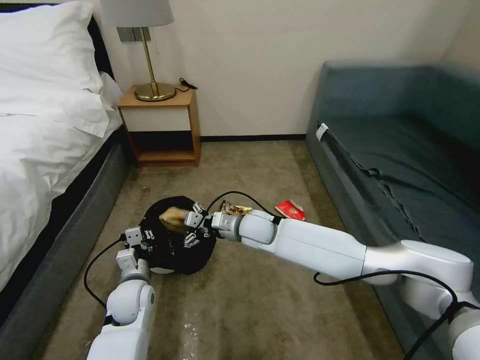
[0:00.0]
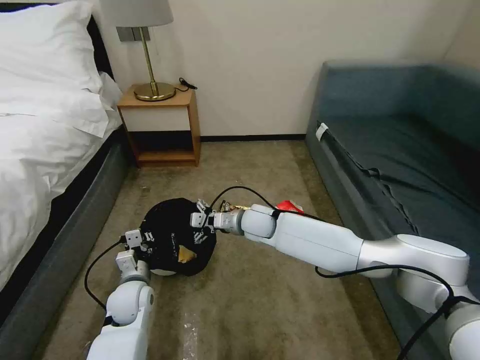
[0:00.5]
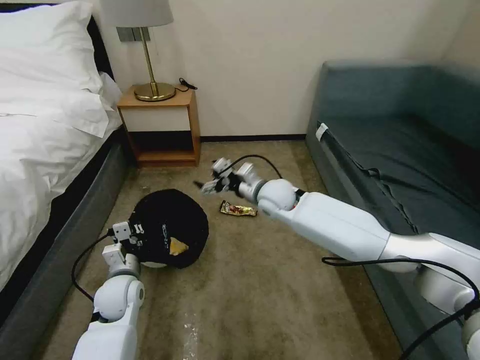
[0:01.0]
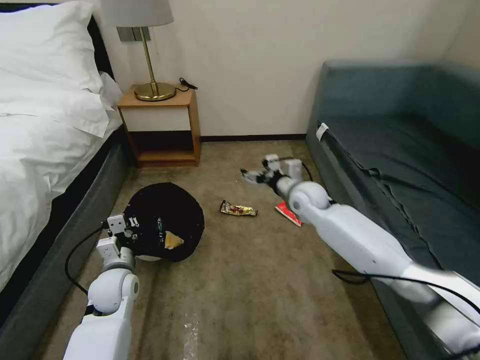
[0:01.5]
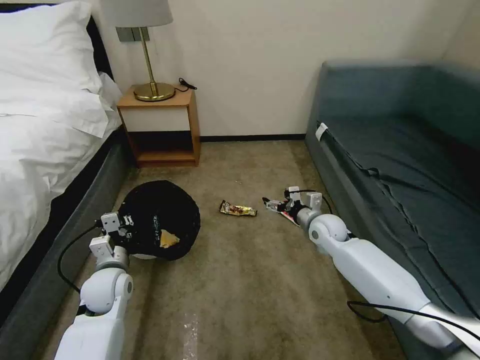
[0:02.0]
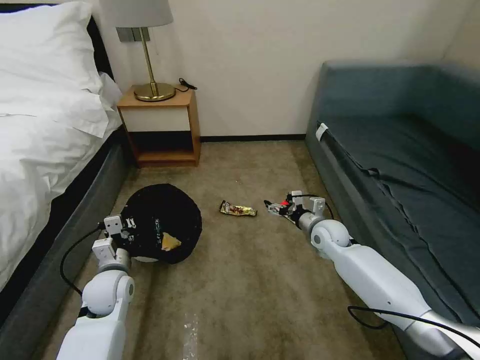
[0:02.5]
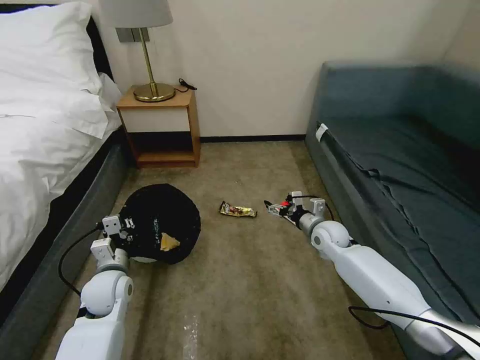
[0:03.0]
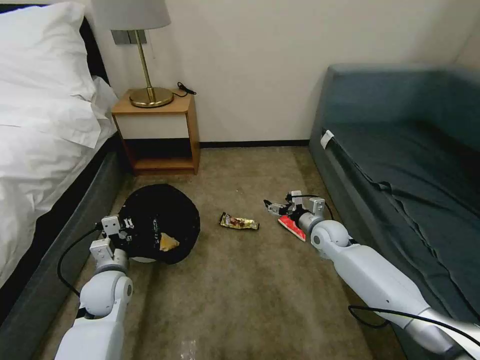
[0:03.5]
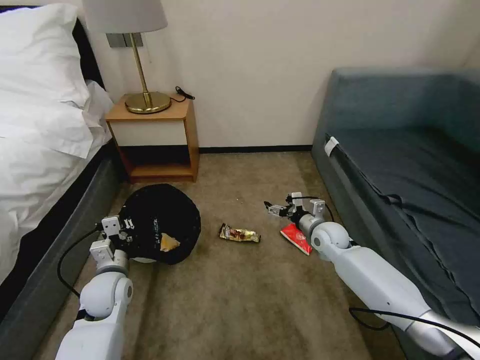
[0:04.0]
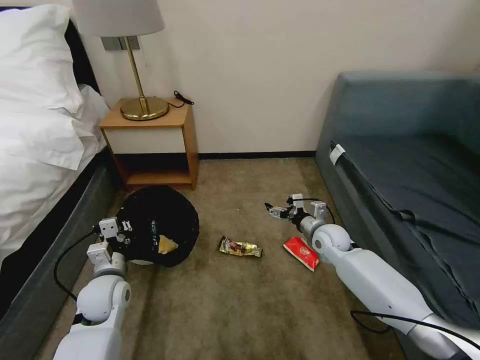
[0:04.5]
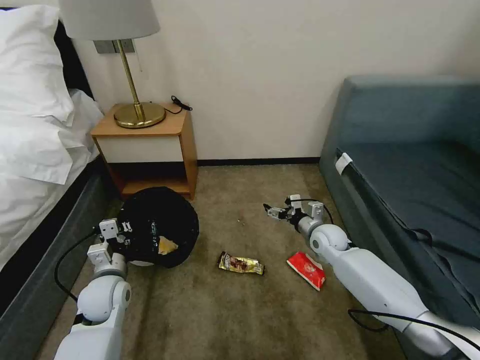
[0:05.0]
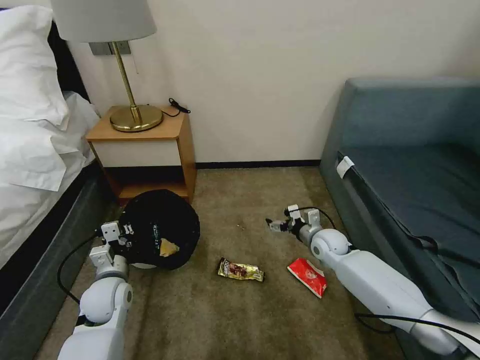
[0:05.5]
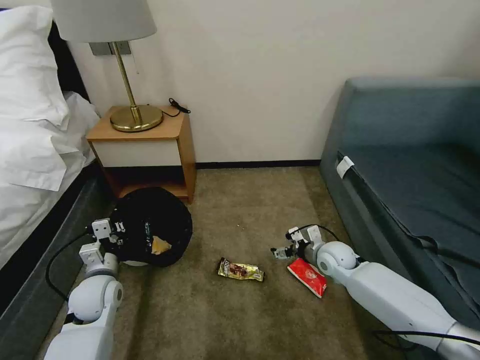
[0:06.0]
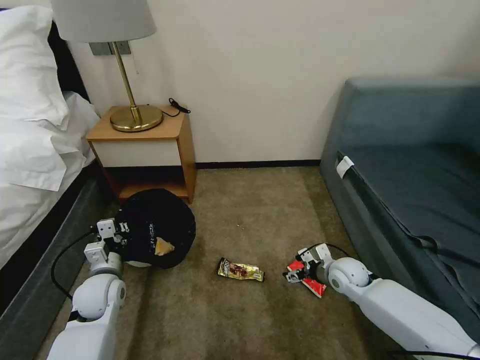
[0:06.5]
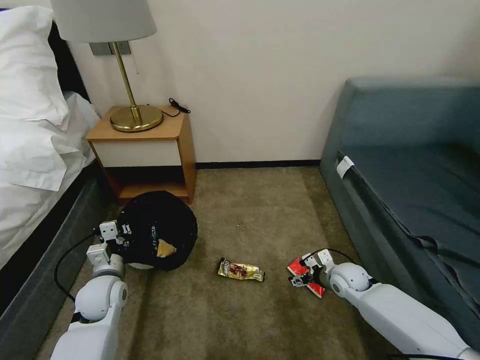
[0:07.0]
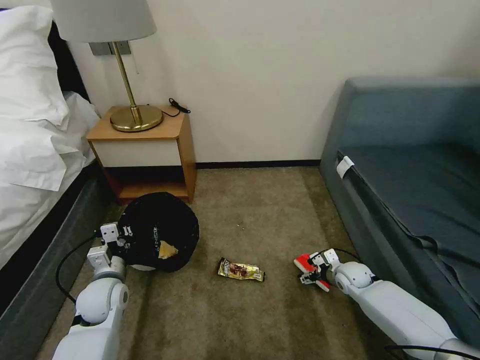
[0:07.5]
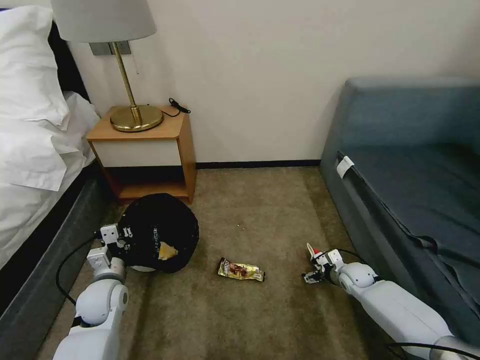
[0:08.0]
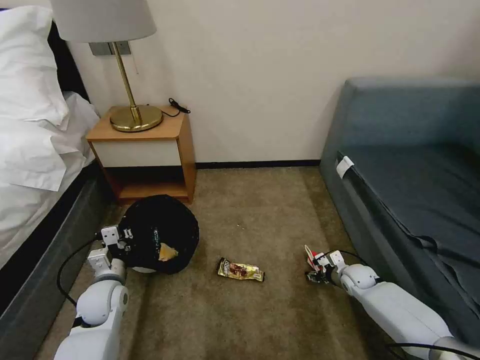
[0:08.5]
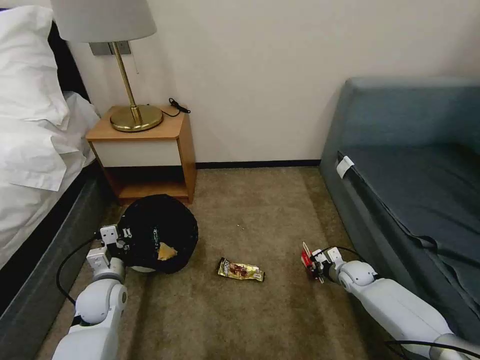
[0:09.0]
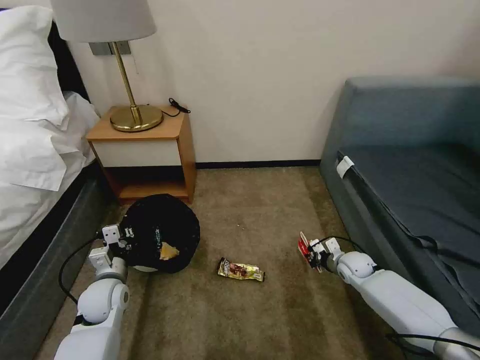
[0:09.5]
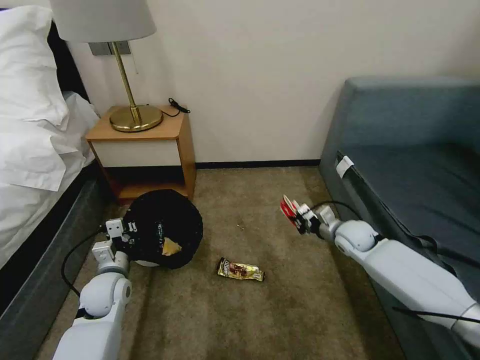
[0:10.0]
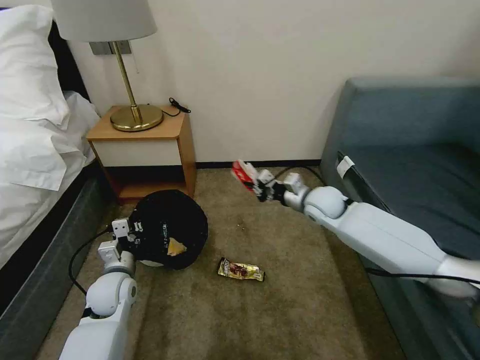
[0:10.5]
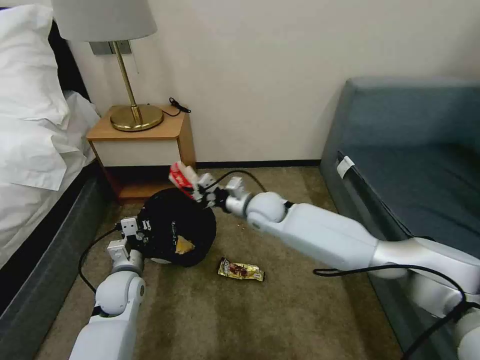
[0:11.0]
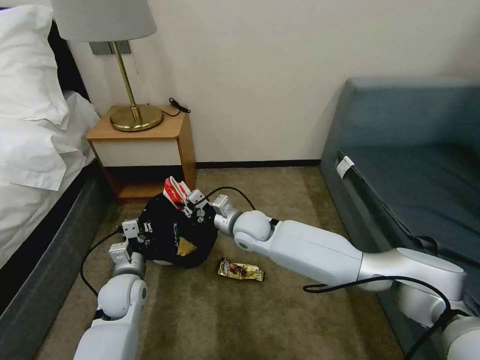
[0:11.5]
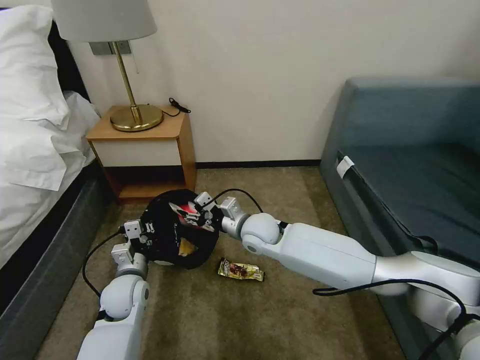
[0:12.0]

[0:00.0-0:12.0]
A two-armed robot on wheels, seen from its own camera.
Task of the whole recording: Pick up the trash bin, then pick up the garbage on the floor and place it into the trash bin.
0:00.0 to 0:02.0: The right gripper goes roughly 20 cm to the right. The left gripper changes place by roughly 5 cm.
0:04.0 to 0:06.0: The right gripper changes place by roughly 5 cm.
0:06.0 to 0:08.0: The right gripper moves downward and to the right, approximately 15 cm.
0:08.0 to 0:10.0: The right gripper heads upward, covering approximately 15 cm, and closes.
0:10.0 to 0:12.0: The right gripper heads to the left, covering approximately 25 cm, and opens up.

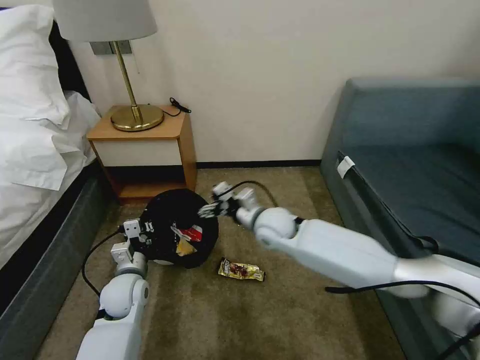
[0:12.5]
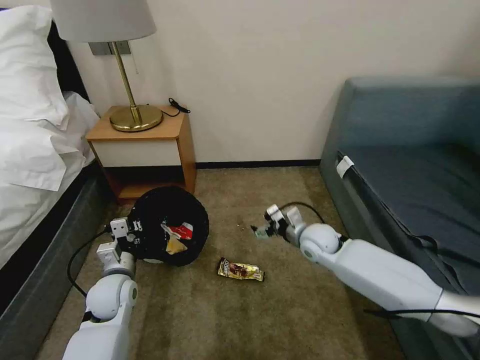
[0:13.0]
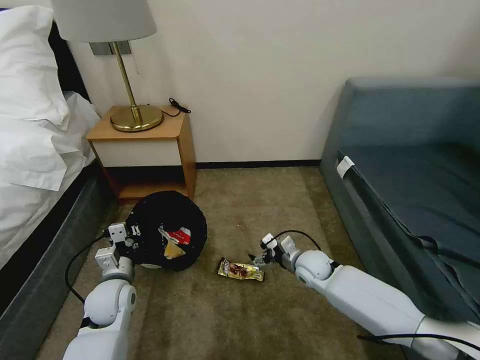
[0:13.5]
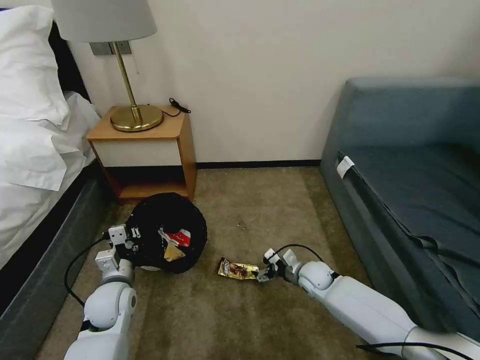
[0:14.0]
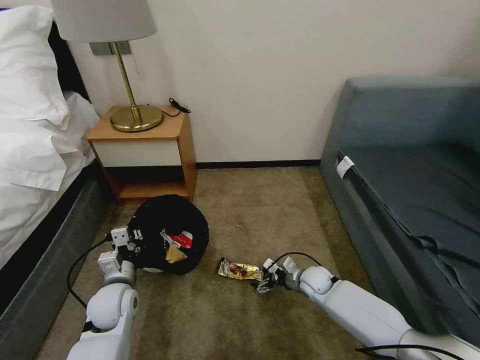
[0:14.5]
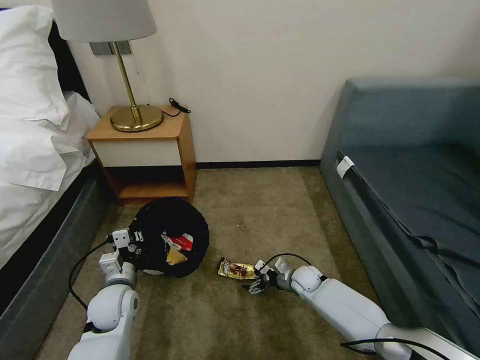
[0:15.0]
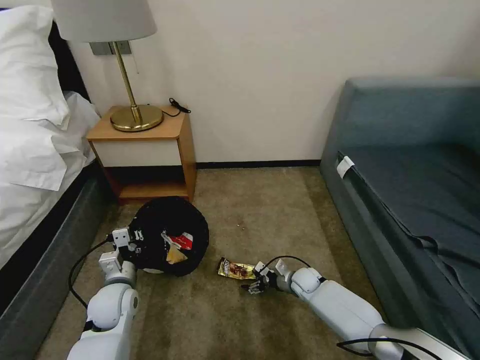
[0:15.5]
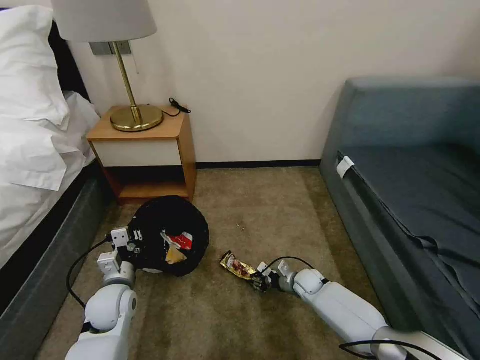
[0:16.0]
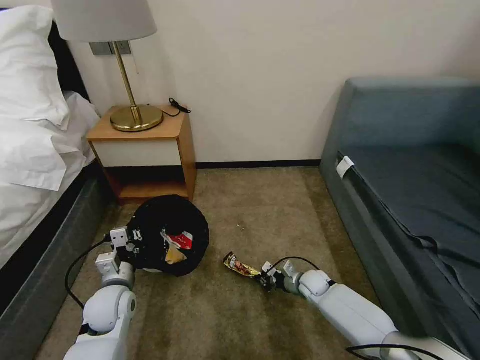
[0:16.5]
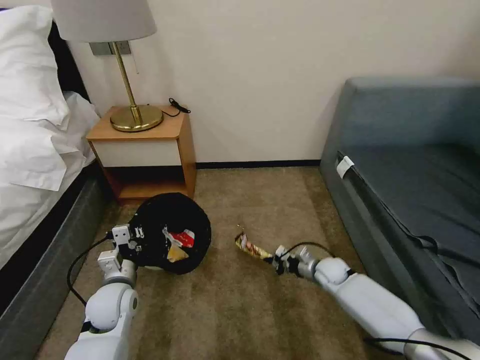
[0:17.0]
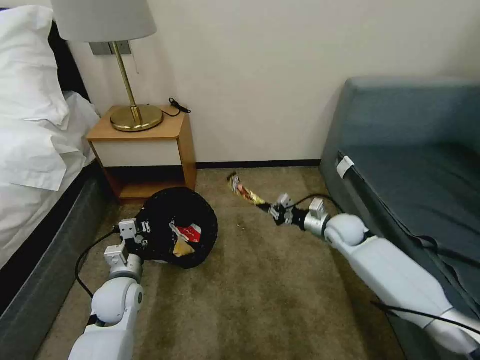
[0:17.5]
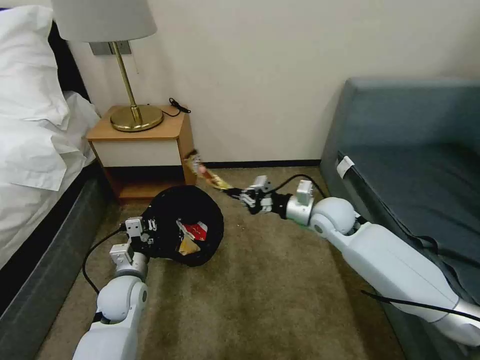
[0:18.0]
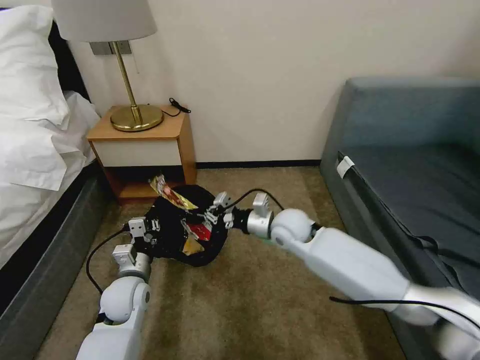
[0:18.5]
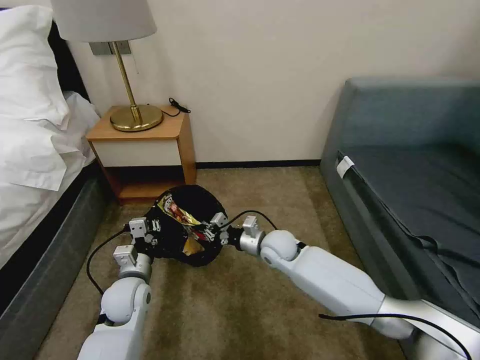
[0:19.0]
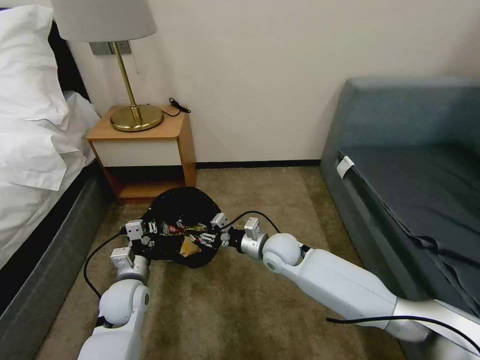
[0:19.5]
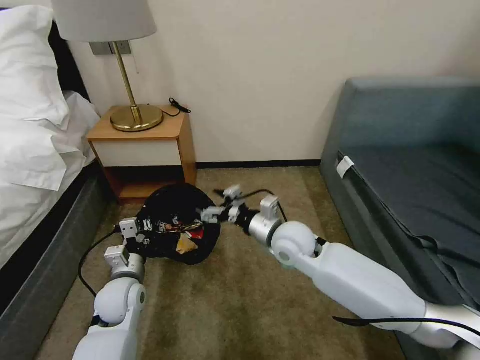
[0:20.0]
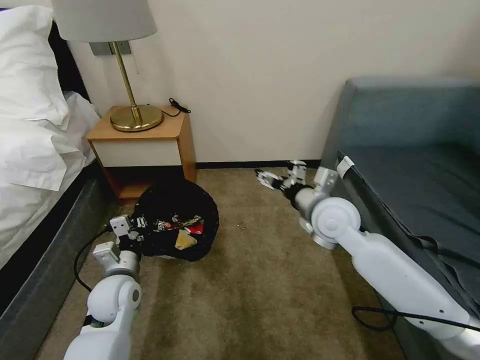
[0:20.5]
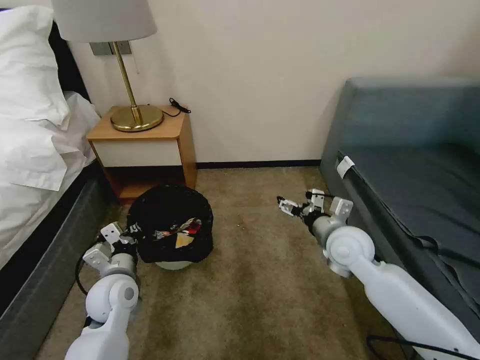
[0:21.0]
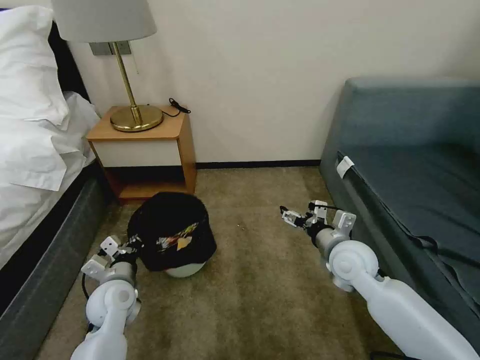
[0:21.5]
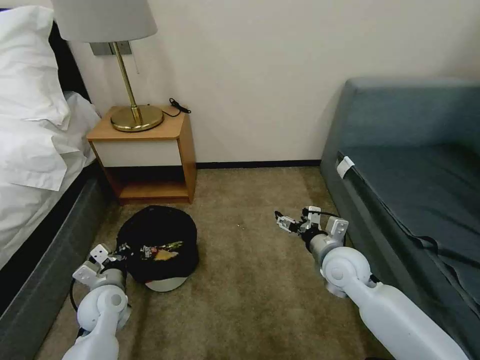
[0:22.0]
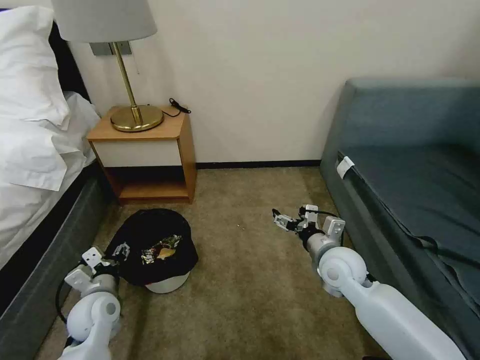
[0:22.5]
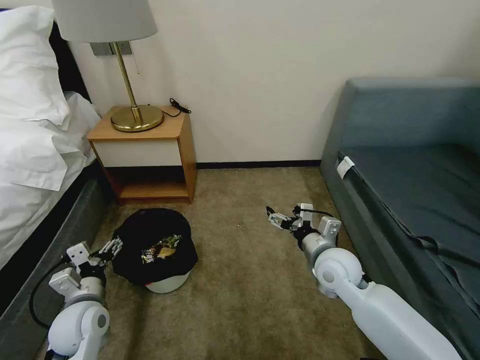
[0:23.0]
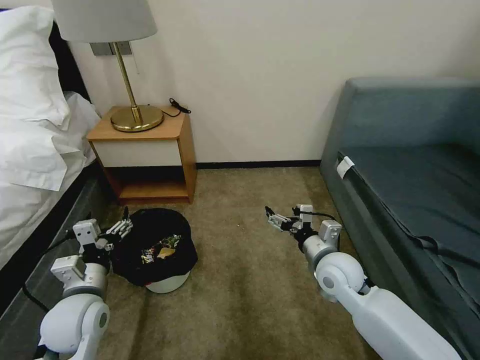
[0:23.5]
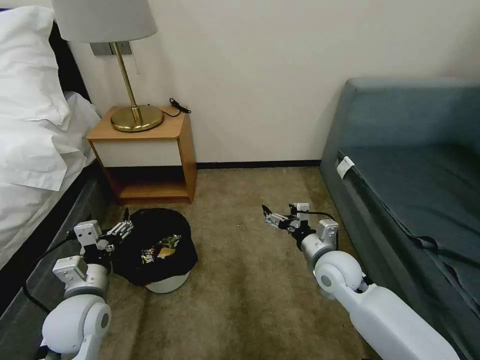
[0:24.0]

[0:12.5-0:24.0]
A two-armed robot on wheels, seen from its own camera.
Task of the whole recording: Pick up the trash bin, then pick up the garbage on the floor and place it into the trash bin.
0:12.5 to 0:14.5: The right gripper heads downward and to the right, covering roughly 25 cm.
0:14.5 to 0:16.5: The right gripper closes.
0:16.5 to 0:18.5: The right gripper moves upward and to the left, about 30 cm.
0:18.5 to 0:20.0: The right gripper is displaced backward by some 5 cm, goes downward and returns, roughly 10 cm each way, and opens its fingers.
0:20.0 to 0:22.0: The left gripper moves some 5 cm. The right gripper shifts roughly 10 cm to the right.
0:22.0 to 0:24.0: The left gripper moves upward and backward, about 10 cm, and opens up.
